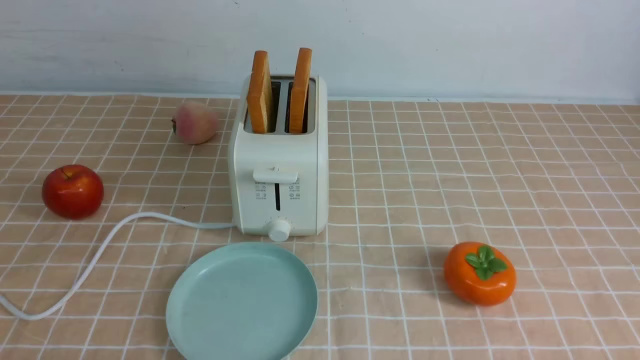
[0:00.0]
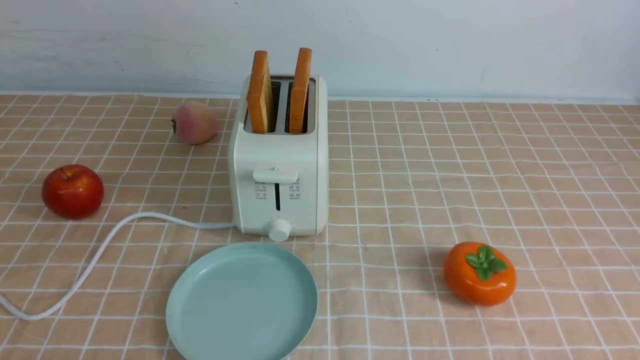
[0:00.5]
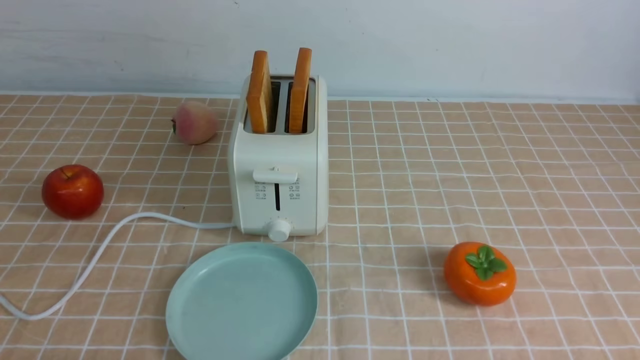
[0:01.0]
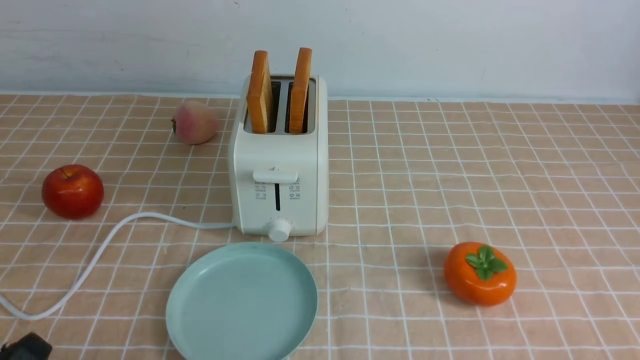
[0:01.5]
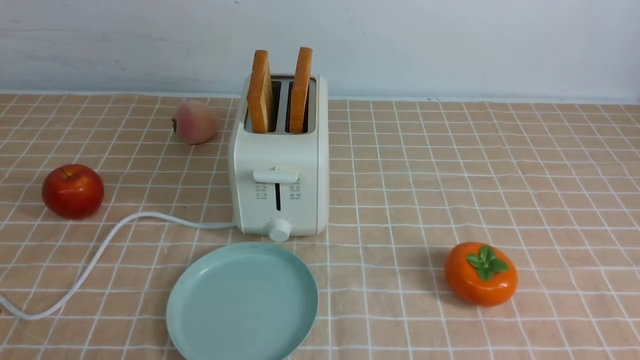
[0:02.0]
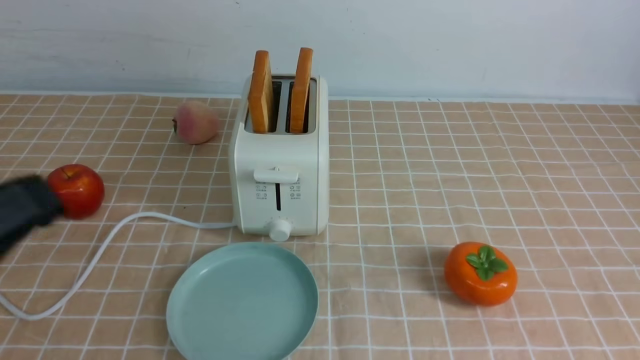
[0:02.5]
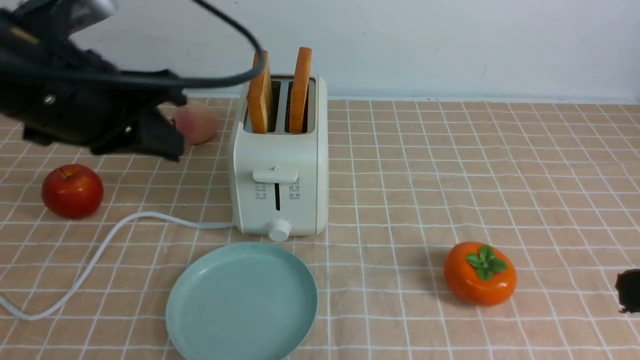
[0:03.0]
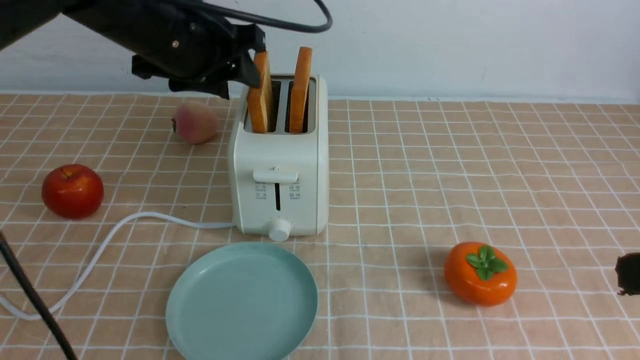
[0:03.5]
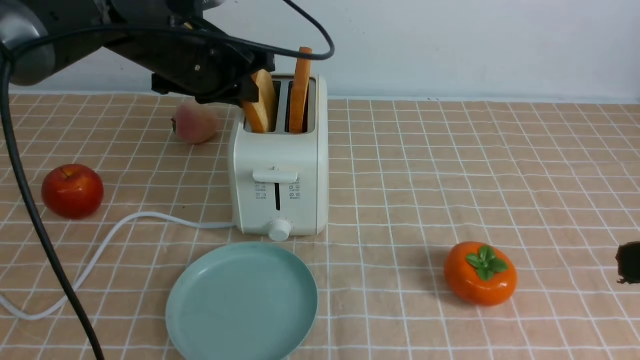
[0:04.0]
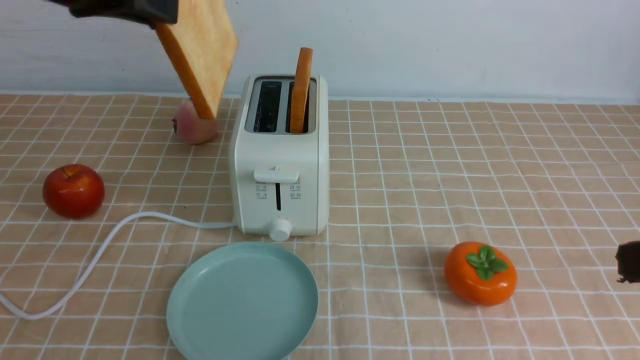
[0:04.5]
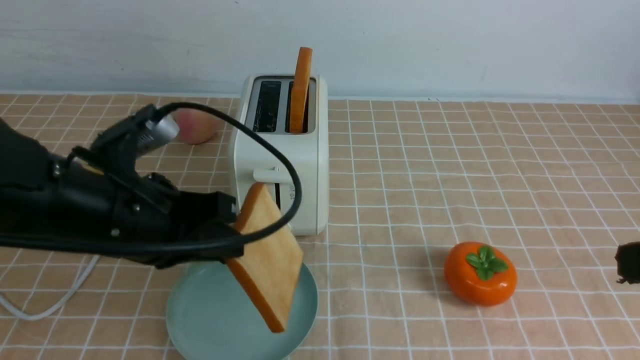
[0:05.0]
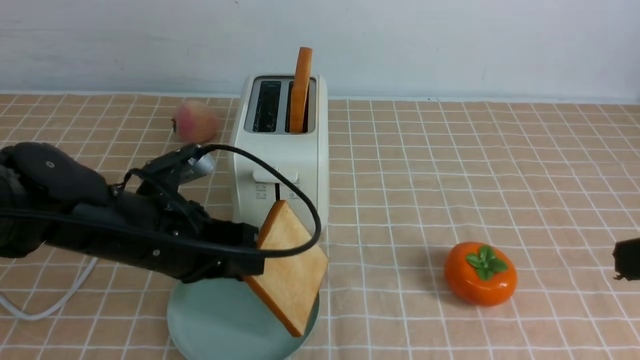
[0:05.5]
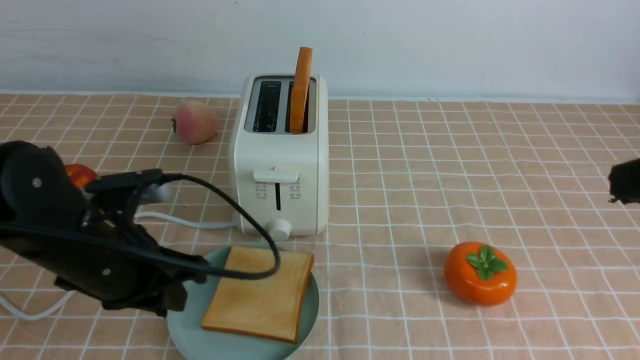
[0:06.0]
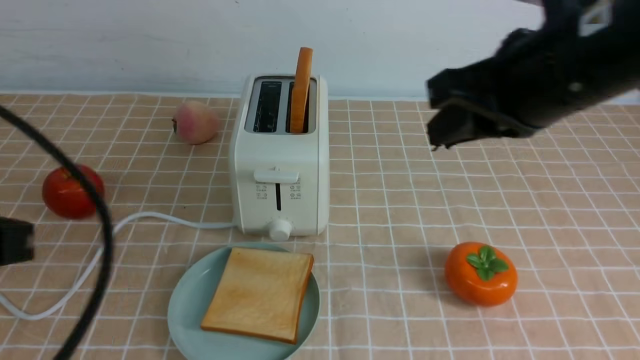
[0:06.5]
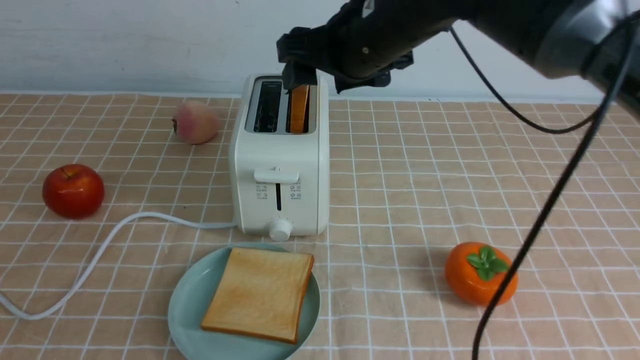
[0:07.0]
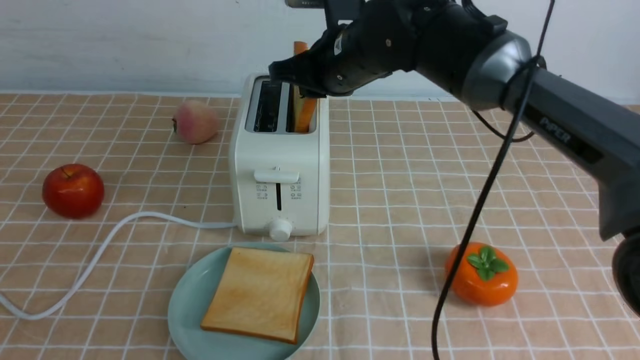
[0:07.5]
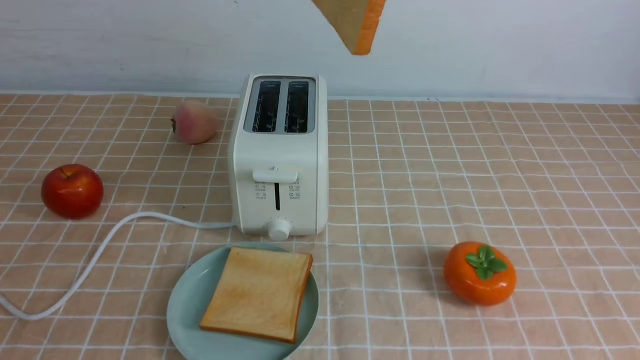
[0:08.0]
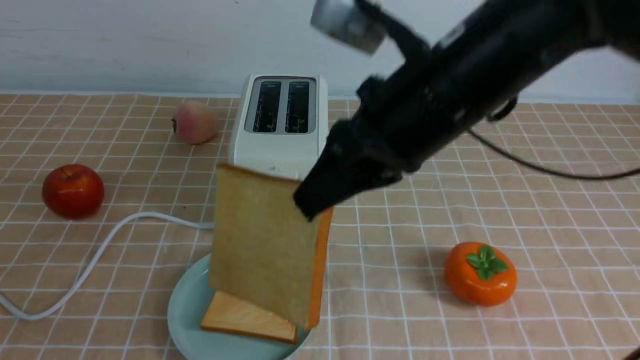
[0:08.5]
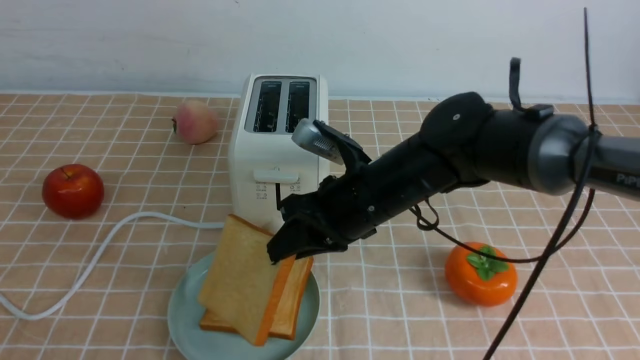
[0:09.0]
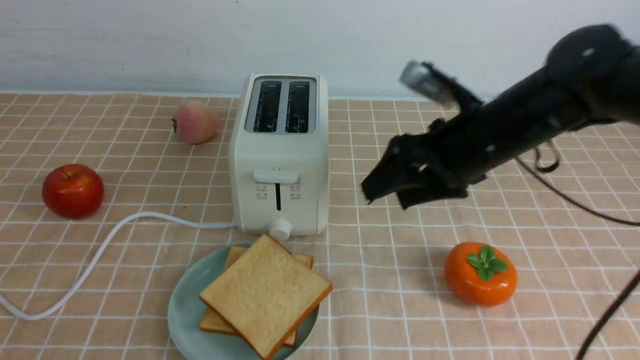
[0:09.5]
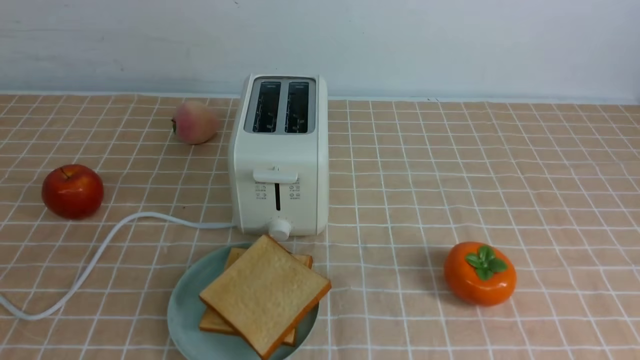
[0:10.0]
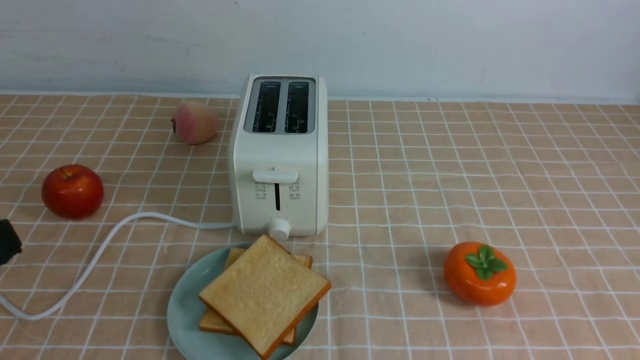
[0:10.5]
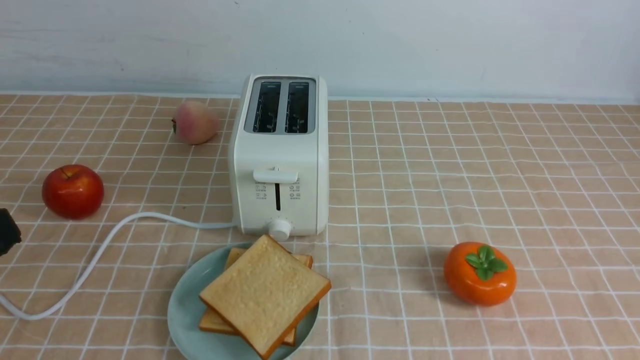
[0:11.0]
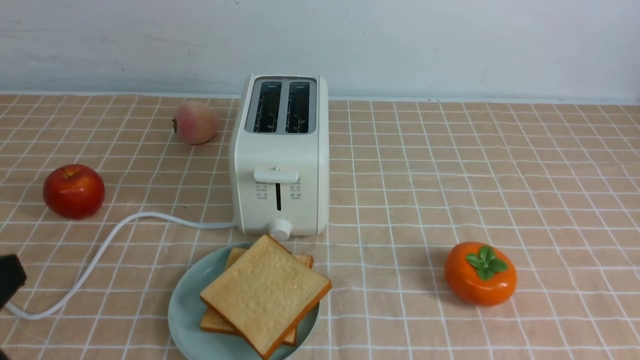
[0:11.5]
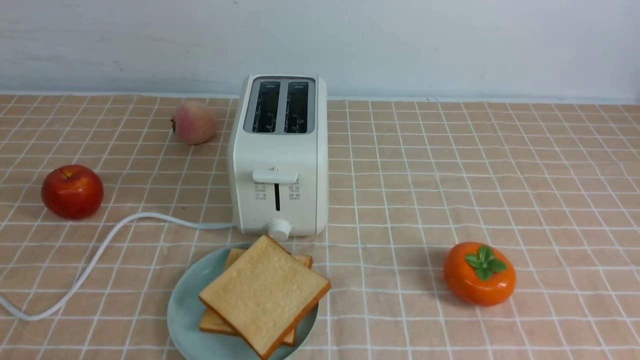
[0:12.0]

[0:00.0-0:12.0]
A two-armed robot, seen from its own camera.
Task of the whole recording: take toasted bread from bread machine on light coffee tablecloth place on plate.
Step, 0:00.0 to 0:04.0: use the left arm to take out a slice of bread.
Step, 0:04.5 to 0:05.5: use the left arm to put a slice of bread into the empty plate.
Step, 0:06.0 to 0:07.5: use the right arm to take out a slice of bread.
Step, 0:08.0 to 0:09.0: use the right arm to put a slice of bread into the plate.
0:02.0 to 0:04.0: The right gripper shifts some 15 cm upward and forward. Meanwhile the left gripper shifts some 35 cm forward, and opens, then closes once more.
0:04.0 to 0:06.0: The left gripper moves backward and downward, approximately 20 cm. Meanwhile the right gripper changes place by some 5 cm.
0:06.0 to 0:08.0: The left gripper heads backward and upward, covering approximately 25 cm, and closes its fingers, while the right gripper is displaced to the left, forward and upward by approximately 20 cm, and opens, then closes once more.
0:08.0 to 0:10.0: The right gripper is displaced to the right and backward by roughly 25 cm, reaches roughly 25 cm downward, then returns, and opens and closes again.
0:10.0 to 0:12.0: The right gripper moves backward and downward, some 15 cm; the left gripper goes roughly 20 cm downward.

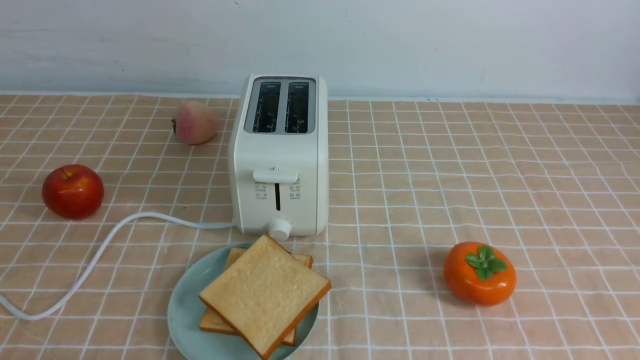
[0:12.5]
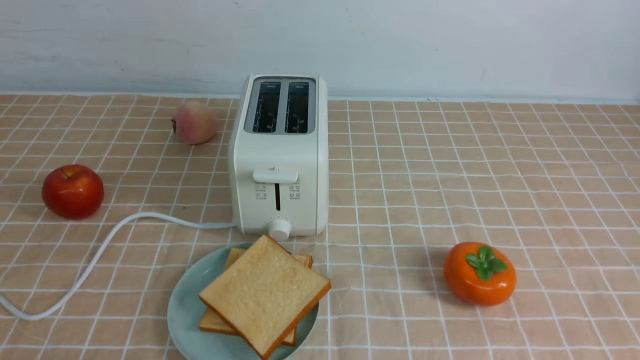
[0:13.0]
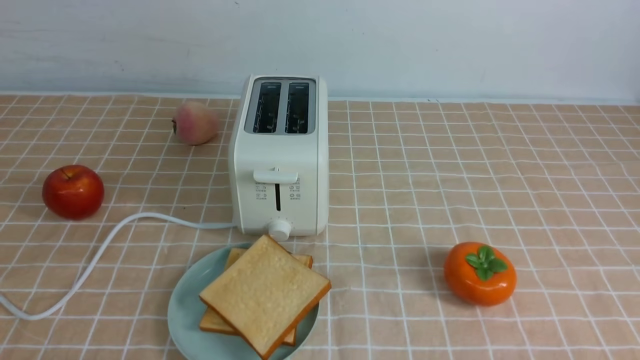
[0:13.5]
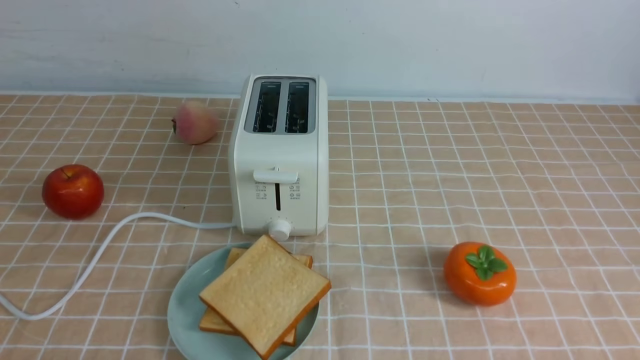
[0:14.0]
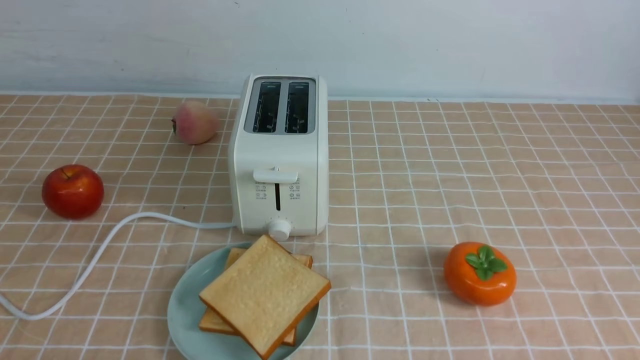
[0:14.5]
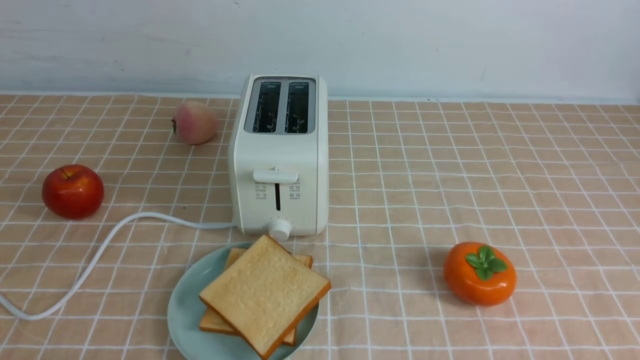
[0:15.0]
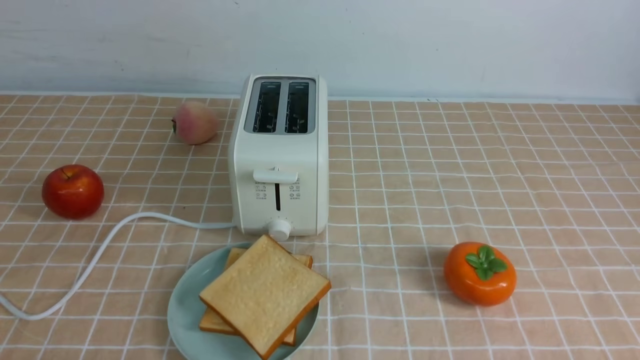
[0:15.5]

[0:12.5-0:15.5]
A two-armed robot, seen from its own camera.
Task of the whole recording: take toasted bread from bread machine on light coffee tablecloth place on plate.
0:14.0 to 0:15.5: Both grippers stay about where they are.
